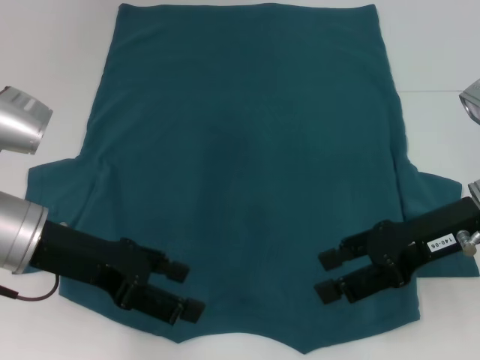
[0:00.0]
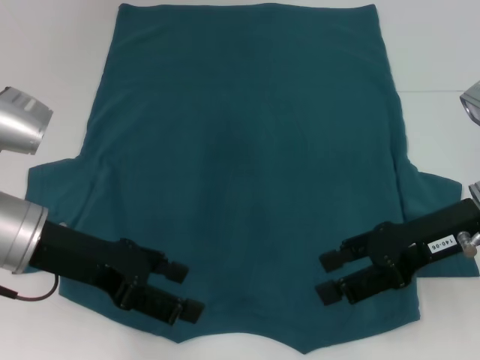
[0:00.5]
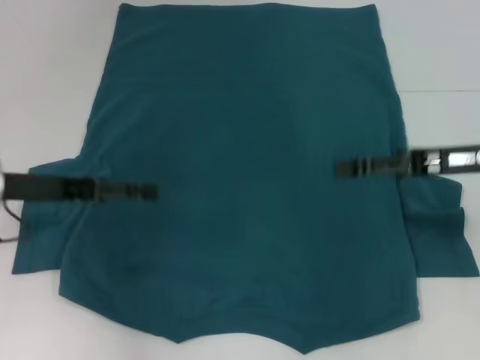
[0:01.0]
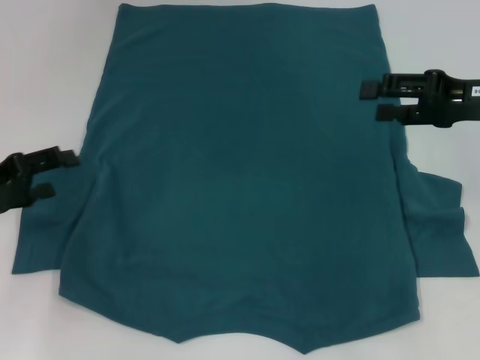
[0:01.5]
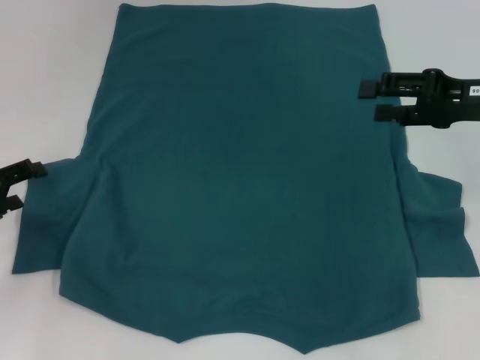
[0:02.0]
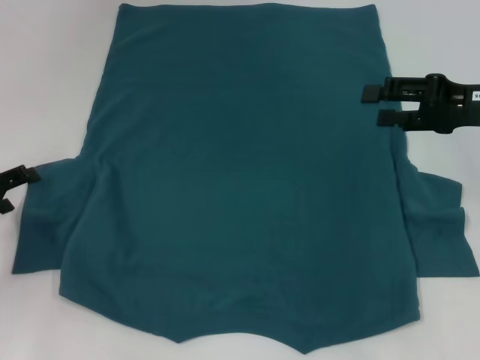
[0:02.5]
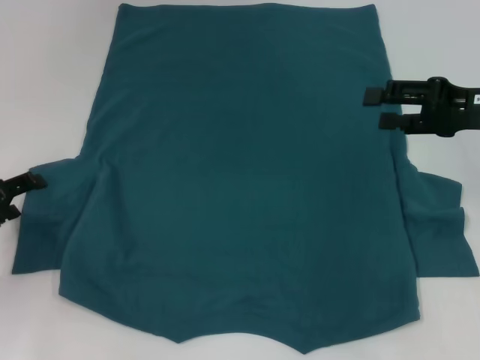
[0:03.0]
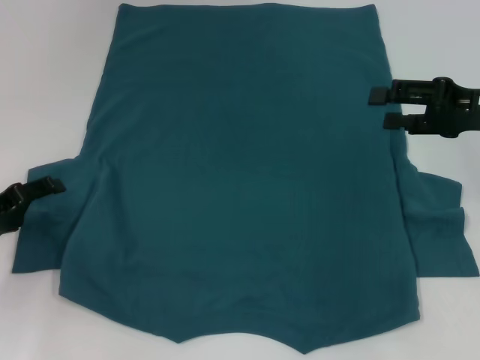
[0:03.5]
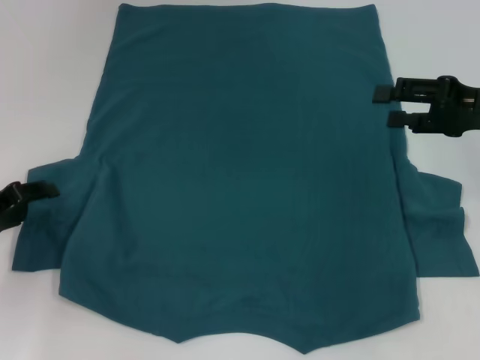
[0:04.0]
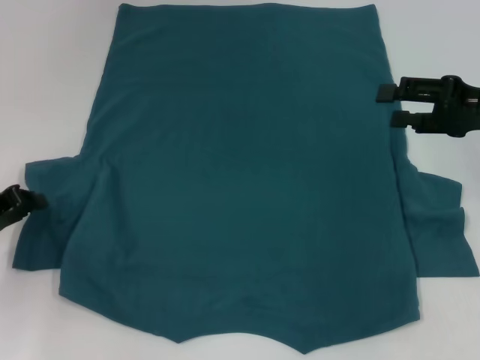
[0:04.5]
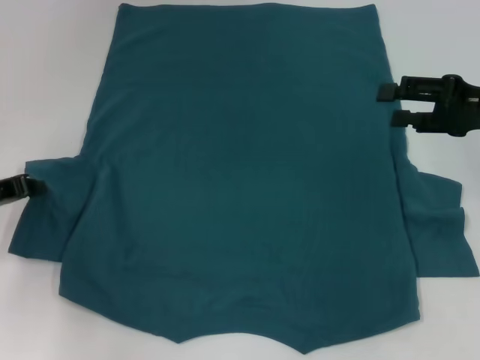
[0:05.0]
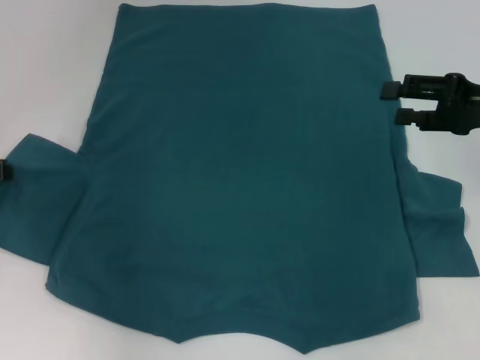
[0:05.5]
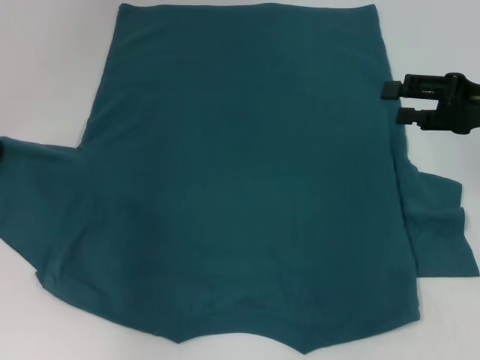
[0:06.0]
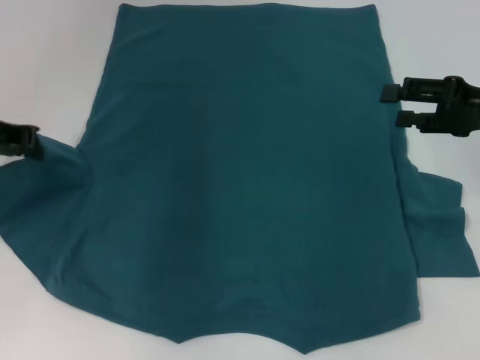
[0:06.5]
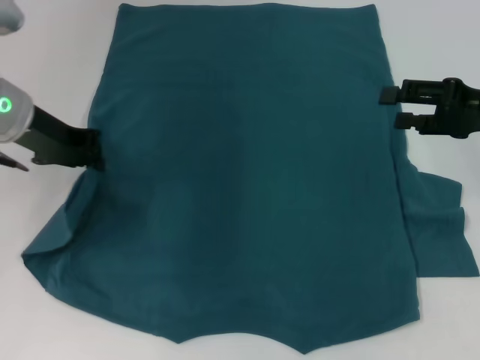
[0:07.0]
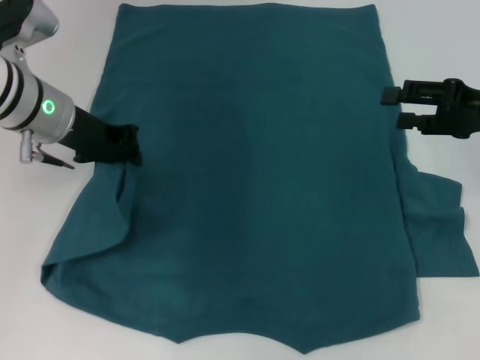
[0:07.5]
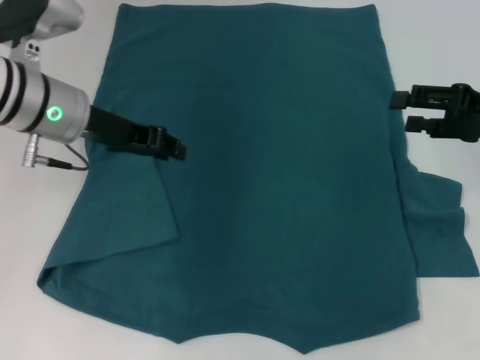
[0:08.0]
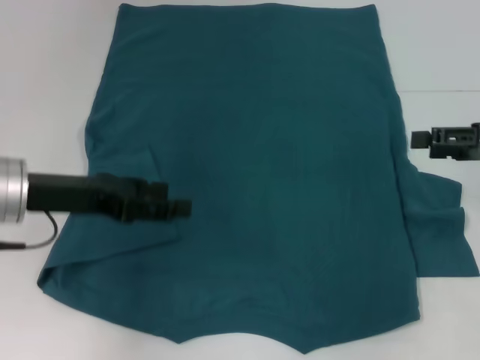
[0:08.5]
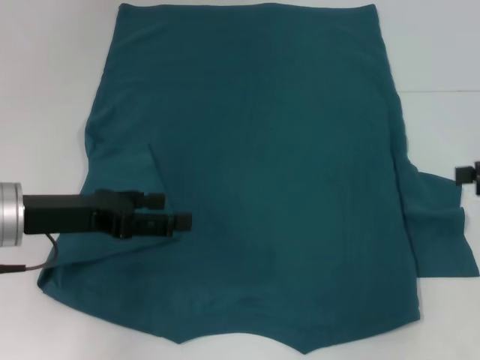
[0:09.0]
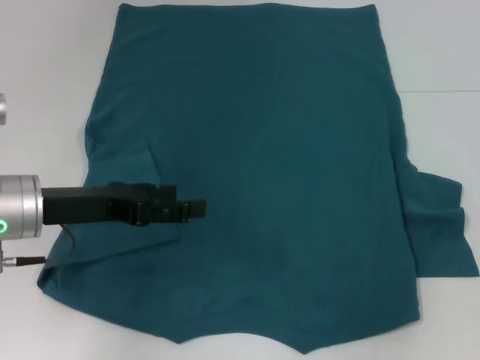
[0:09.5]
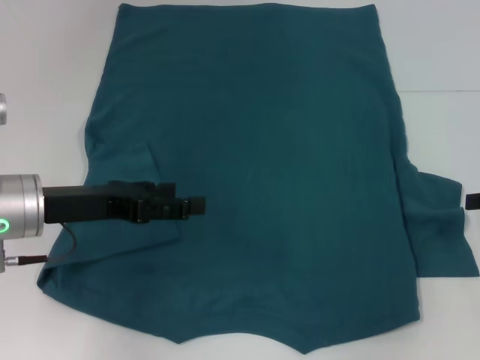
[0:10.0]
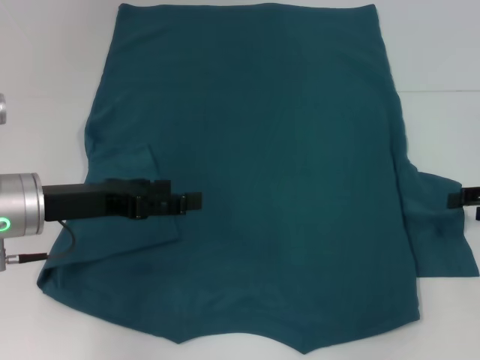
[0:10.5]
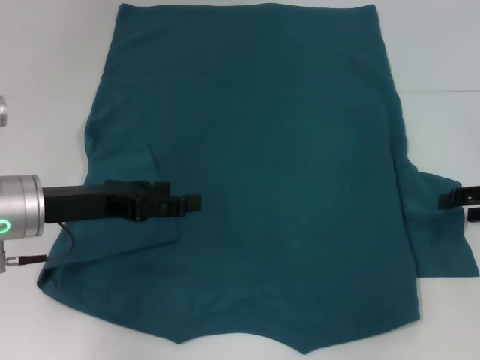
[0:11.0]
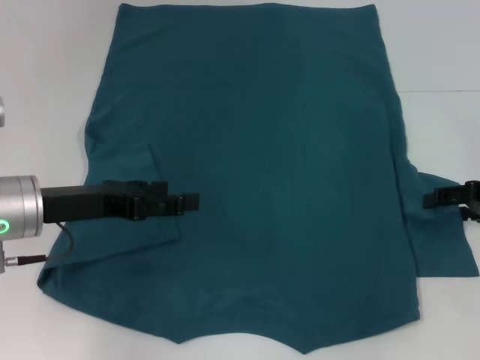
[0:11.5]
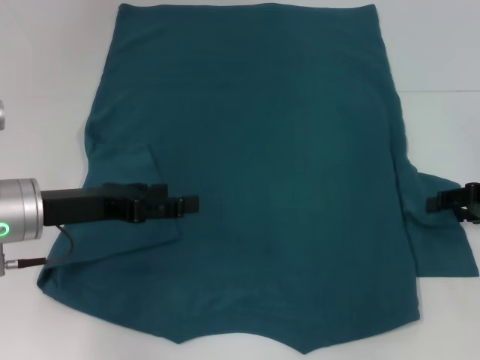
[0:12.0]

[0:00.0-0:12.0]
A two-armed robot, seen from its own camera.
Step, 0:00.0 to 0:07.5: Fold the bottom left sleeve with your left hand.
0:00.0 to 0:02.0: The right gripper shifts about 10 cm to the right and forward, while the left gripper moves to the left and downward, approximately 15 cm.
0:02.0 to 0:04.0: The grippers move only a little.
0:04.0 to 0:06.0: The left gripper is displaced upward and forward by some 10 cm, and closes its fingers.
0:06.0 to 0:08.0: The left gripper moves to the right, approximately 15 cm.
0:08.0 to 0:10.0: The left gripper moves backward, some 10 cm, and opens up; the right gripper moves to the right, roughly 5 cm.
0:10.0 to 0:12.0: The right gripper changes place by roughly 5 cm.

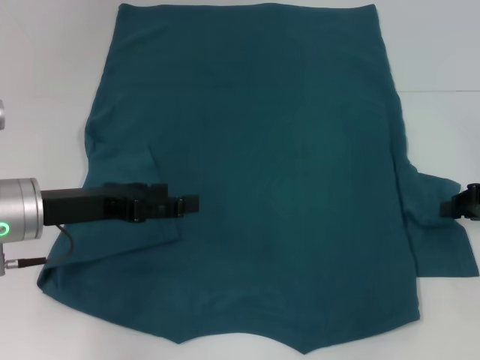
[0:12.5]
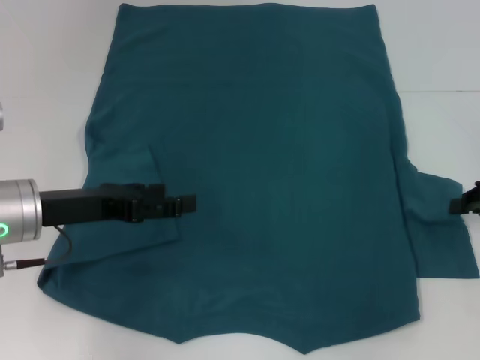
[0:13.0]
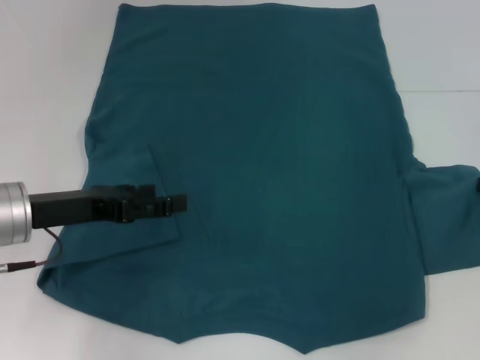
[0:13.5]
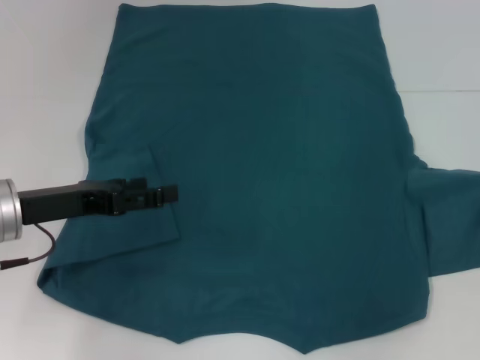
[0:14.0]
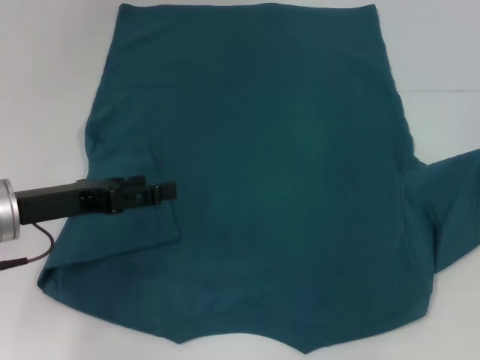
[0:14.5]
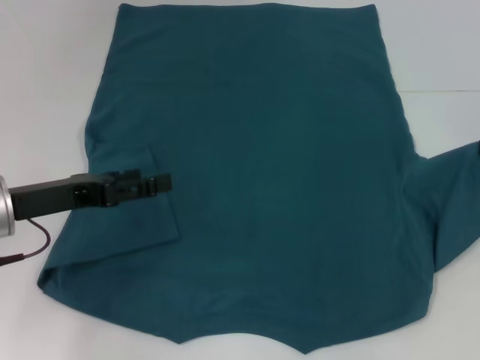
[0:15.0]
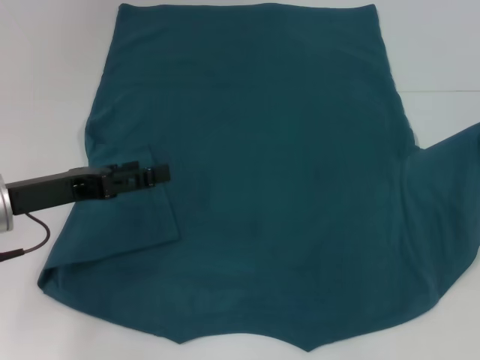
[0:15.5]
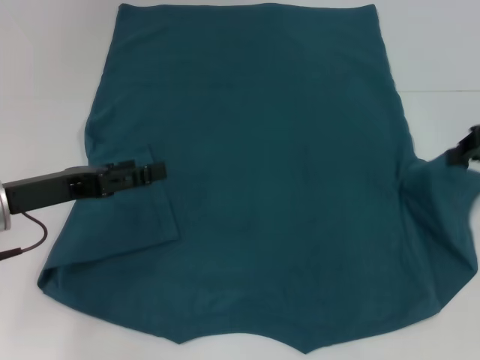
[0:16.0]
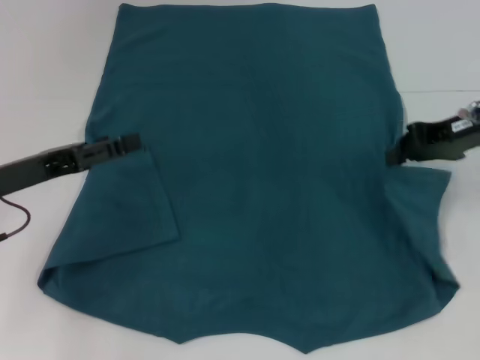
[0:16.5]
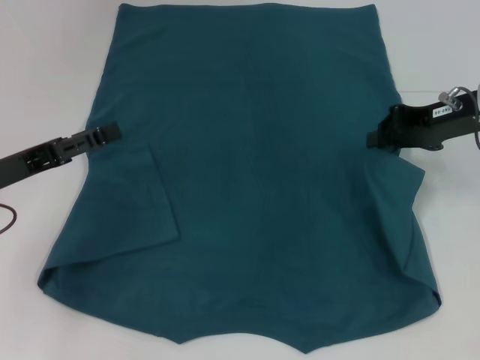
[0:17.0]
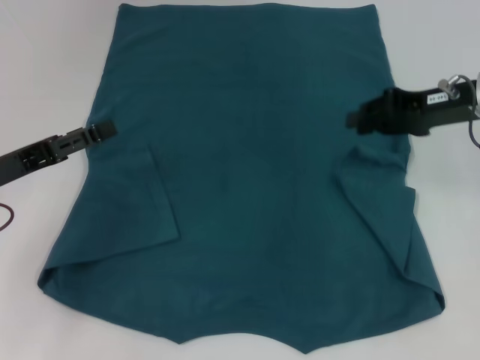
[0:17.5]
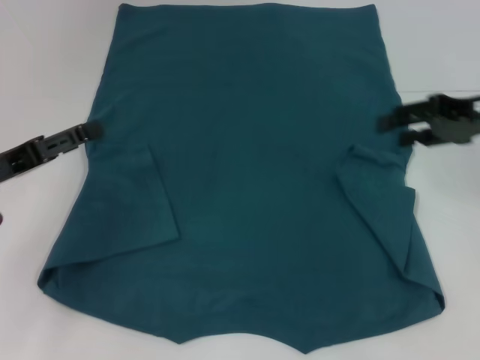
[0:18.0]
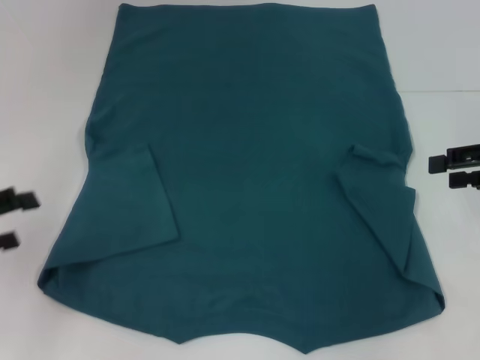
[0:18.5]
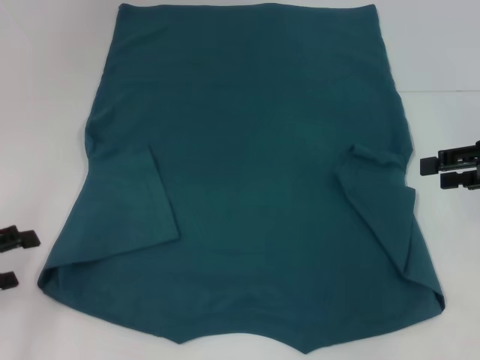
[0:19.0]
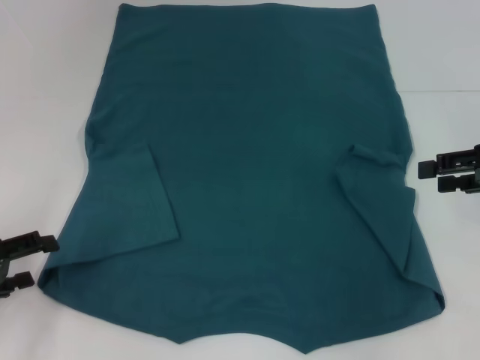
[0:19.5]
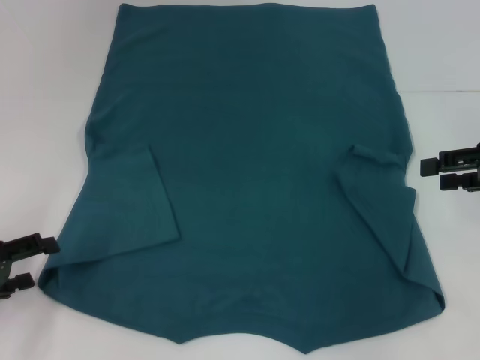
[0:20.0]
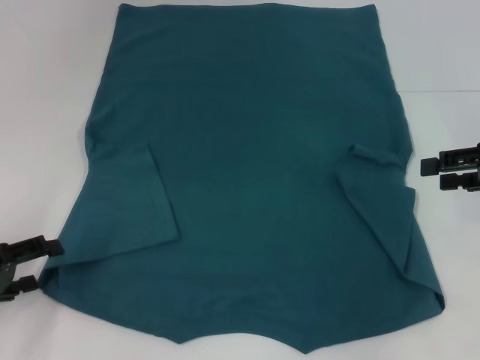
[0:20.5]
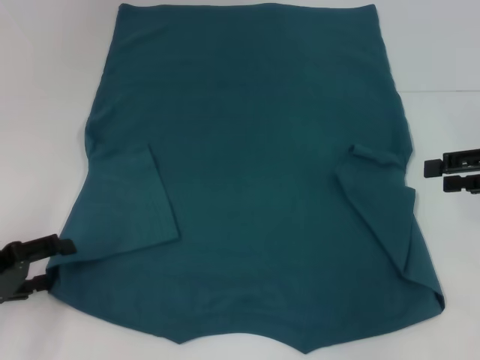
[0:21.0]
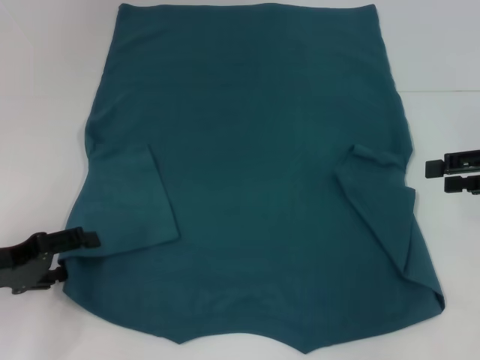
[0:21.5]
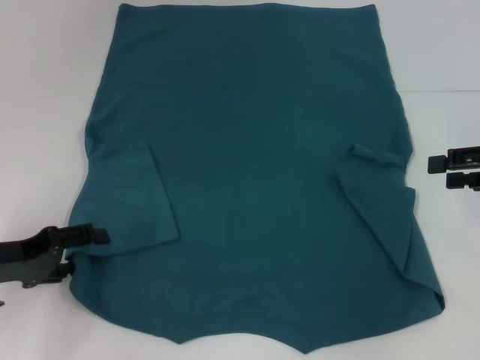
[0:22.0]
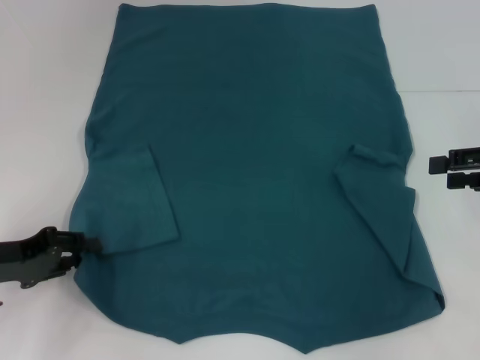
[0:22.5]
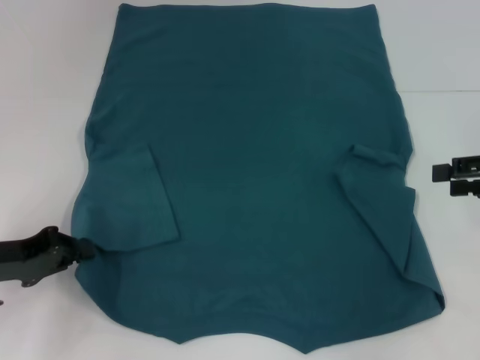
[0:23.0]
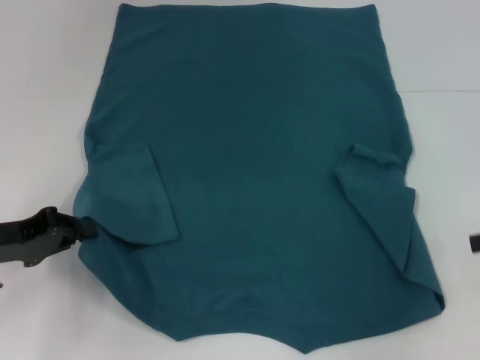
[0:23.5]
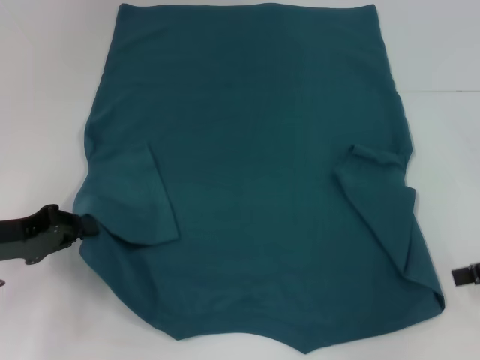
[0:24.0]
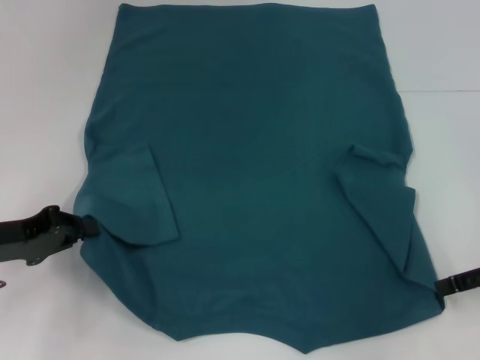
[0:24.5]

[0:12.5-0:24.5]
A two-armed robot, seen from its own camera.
Step, 0:12.5 to 0:17.5: Fold the bottom right sleeve to the right.
Step, 0:18.0 to 0:22.5: Grab the bottom left corner with your left hand.
0:12.5 to 0:14.5: The right gripper moves upward, roughly 5 cm.
0:14.5 to 0:16.5: The right gripper travels to the left by some 10 cm.
0:16.5 to 0:18.5: The right gripper is displaced to the right and backward by some 10 cm, and opens; the left gripper is displaced to the left and backward by some 10 cm.
0:18.5 to 0:20.5: The left gripper travels downward by about 5 cm.
0:20.5 to 0:22.5: The grippers stay close to where they were, moving slightly.
0:22.5 to 0:24.5: The right gripper ends up roughly 5 cm from where it was; the left gripper closes.

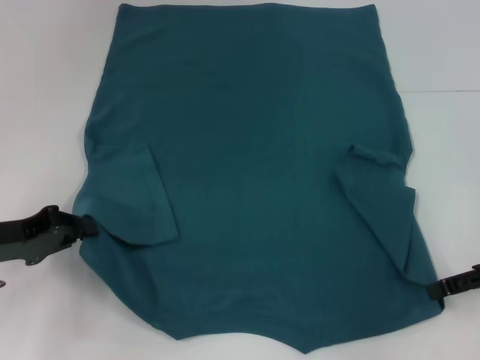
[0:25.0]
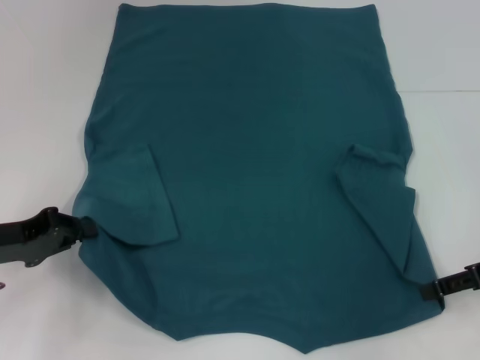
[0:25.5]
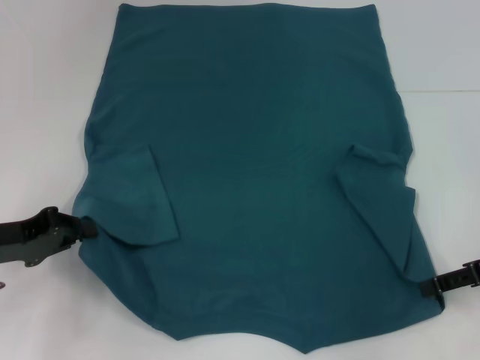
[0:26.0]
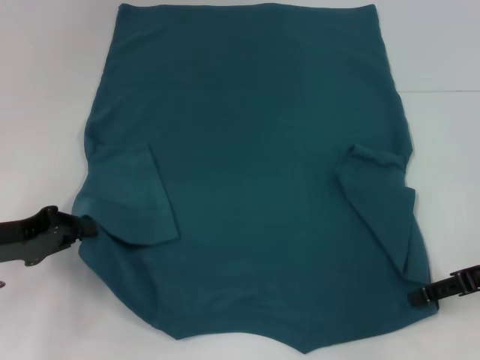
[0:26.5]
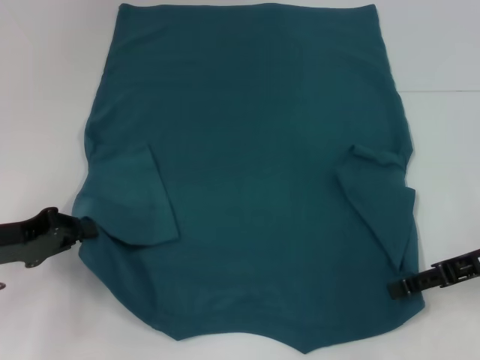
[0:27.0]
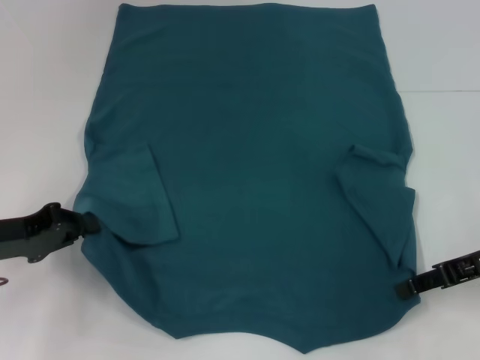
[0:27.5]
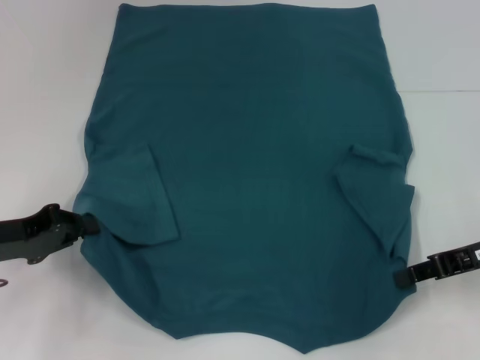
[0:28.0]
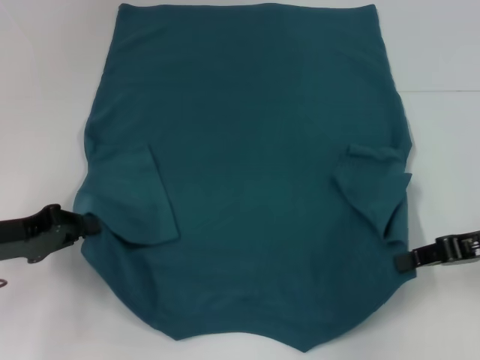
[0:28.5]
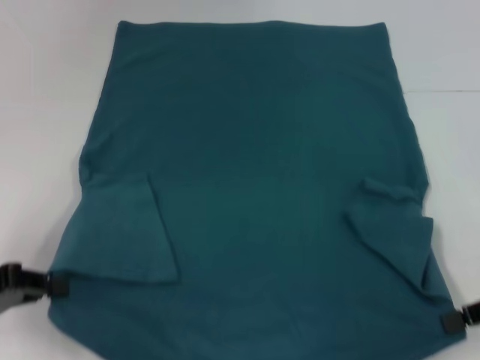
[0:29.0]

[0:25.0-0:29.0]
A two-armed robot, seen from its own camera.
Step, 0:25.0 to 0:28.0: Grab the bottom right corner with your right hand.
0:25.0 to 0:27.0: There are only small adjustments of the grippers.
0:27.0 to 0:29.0: The left gripper changes place by about 5 cm, while the right gripper ends up some 5 cm from where it was, and closes.
